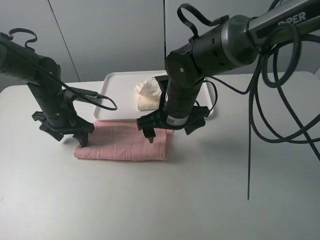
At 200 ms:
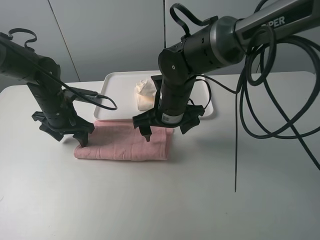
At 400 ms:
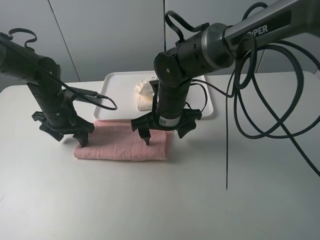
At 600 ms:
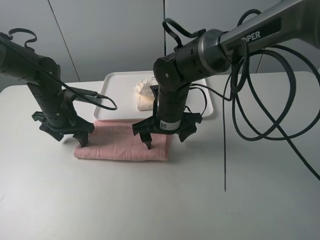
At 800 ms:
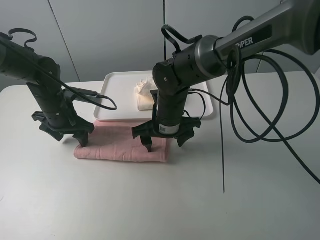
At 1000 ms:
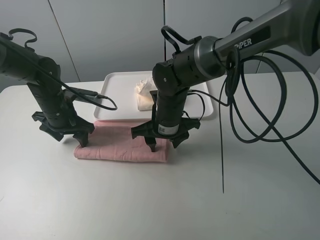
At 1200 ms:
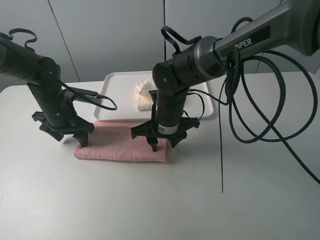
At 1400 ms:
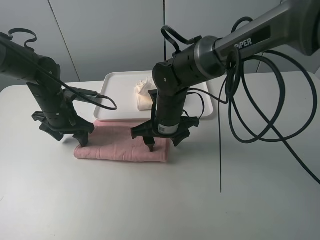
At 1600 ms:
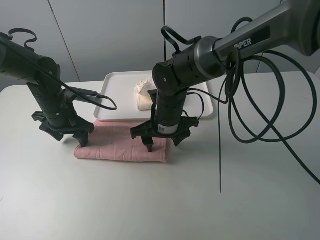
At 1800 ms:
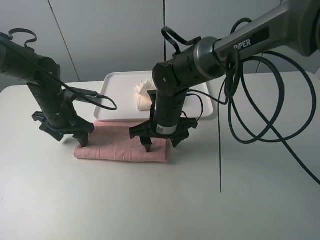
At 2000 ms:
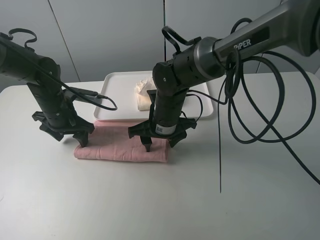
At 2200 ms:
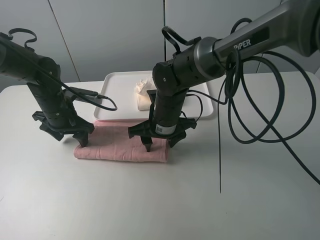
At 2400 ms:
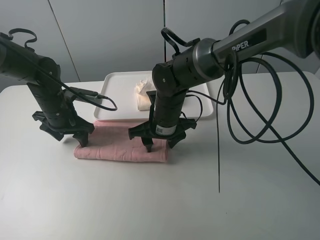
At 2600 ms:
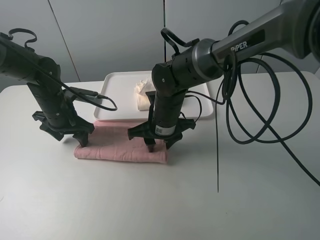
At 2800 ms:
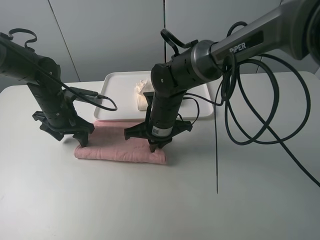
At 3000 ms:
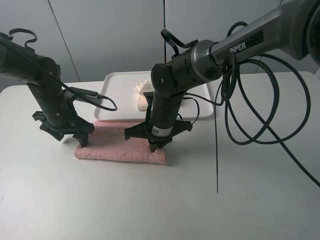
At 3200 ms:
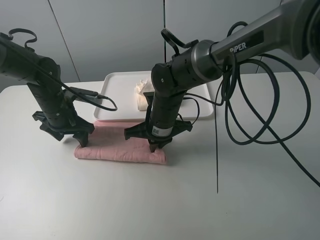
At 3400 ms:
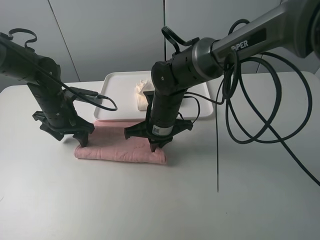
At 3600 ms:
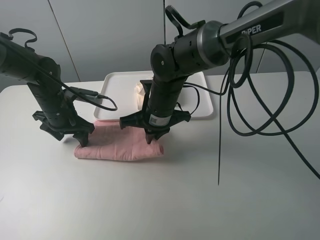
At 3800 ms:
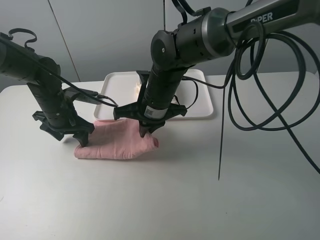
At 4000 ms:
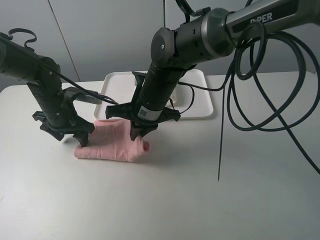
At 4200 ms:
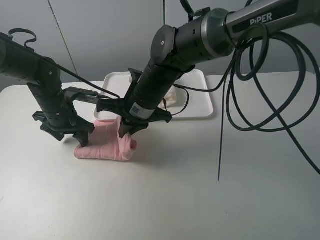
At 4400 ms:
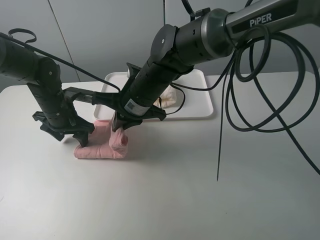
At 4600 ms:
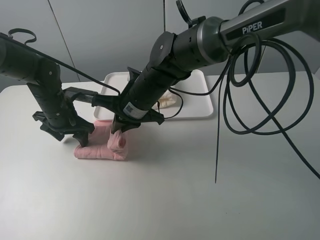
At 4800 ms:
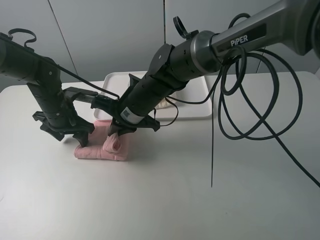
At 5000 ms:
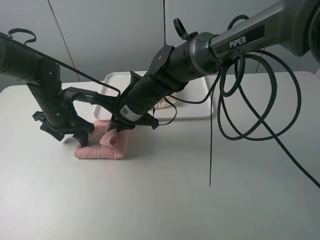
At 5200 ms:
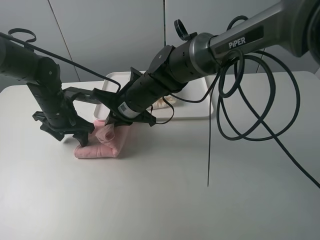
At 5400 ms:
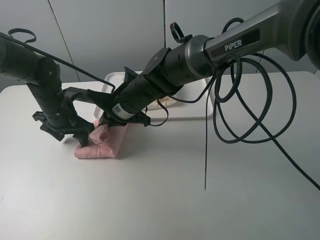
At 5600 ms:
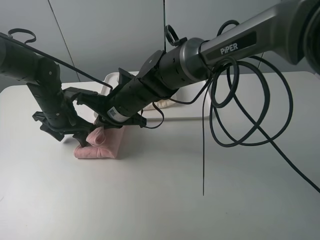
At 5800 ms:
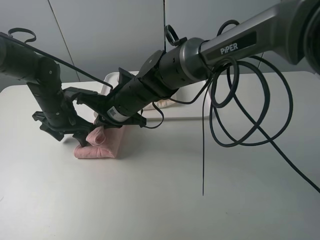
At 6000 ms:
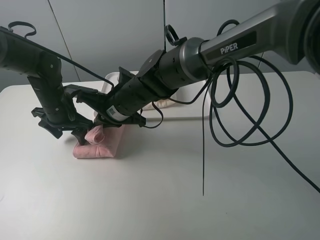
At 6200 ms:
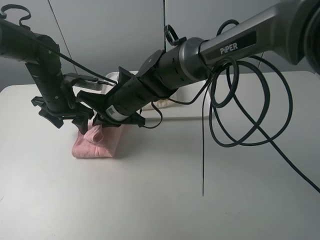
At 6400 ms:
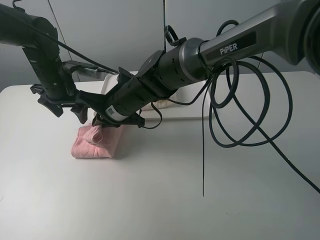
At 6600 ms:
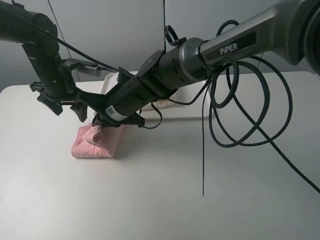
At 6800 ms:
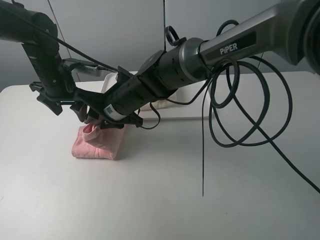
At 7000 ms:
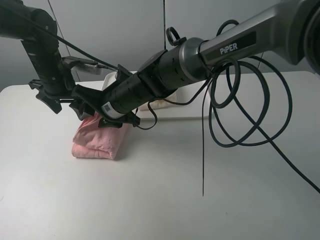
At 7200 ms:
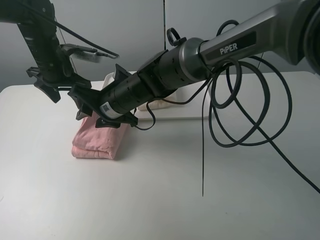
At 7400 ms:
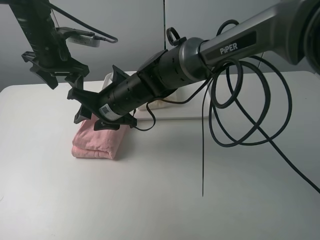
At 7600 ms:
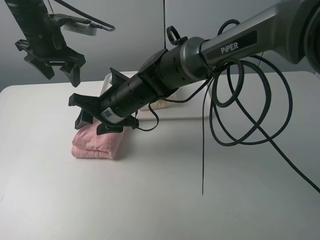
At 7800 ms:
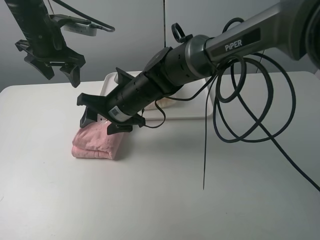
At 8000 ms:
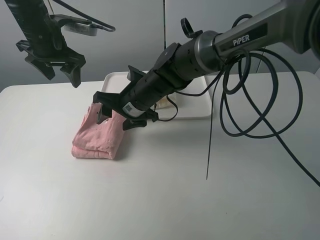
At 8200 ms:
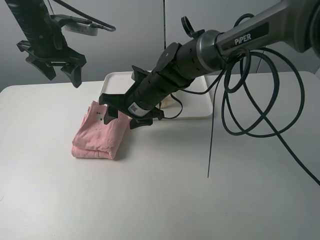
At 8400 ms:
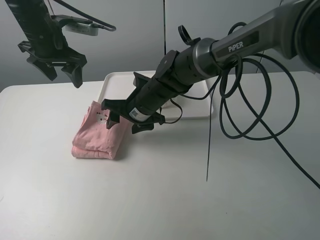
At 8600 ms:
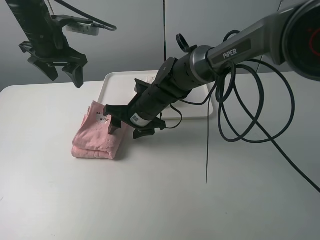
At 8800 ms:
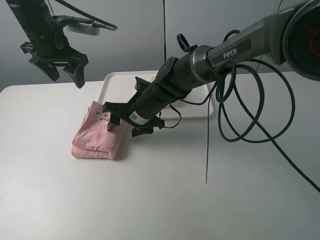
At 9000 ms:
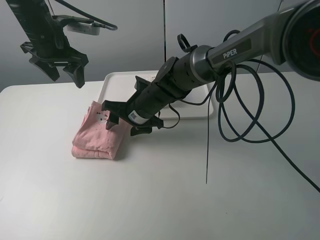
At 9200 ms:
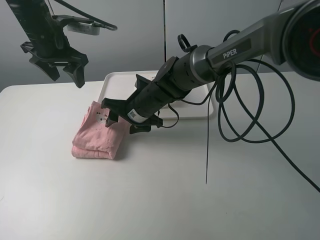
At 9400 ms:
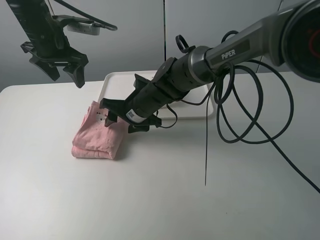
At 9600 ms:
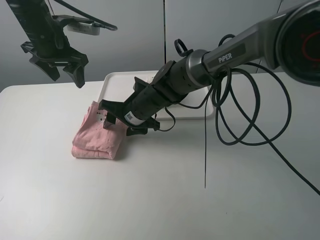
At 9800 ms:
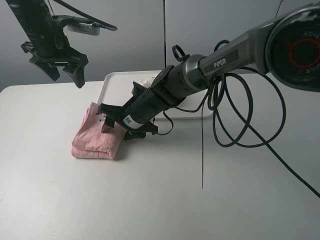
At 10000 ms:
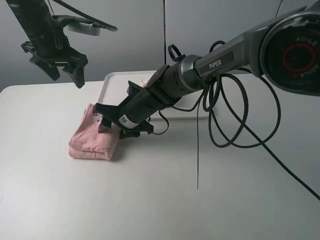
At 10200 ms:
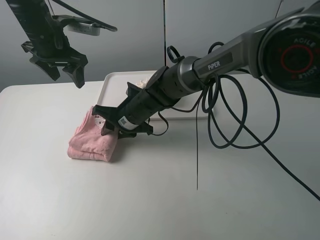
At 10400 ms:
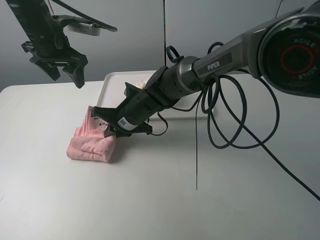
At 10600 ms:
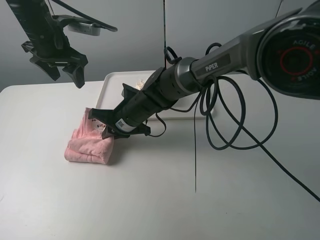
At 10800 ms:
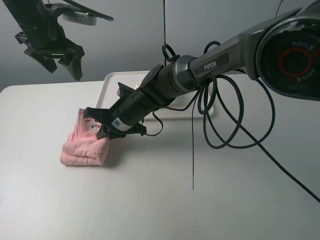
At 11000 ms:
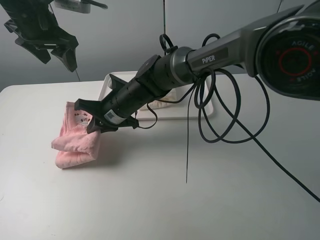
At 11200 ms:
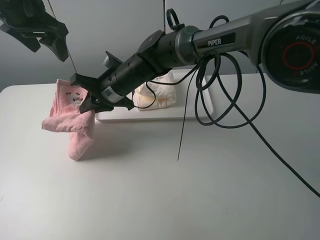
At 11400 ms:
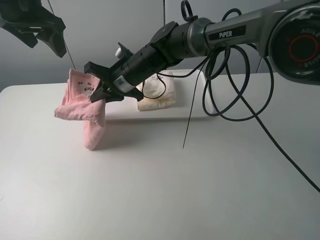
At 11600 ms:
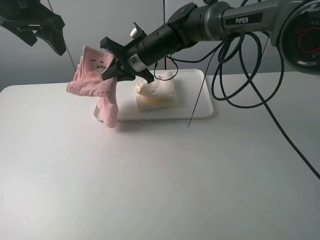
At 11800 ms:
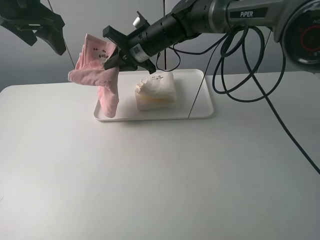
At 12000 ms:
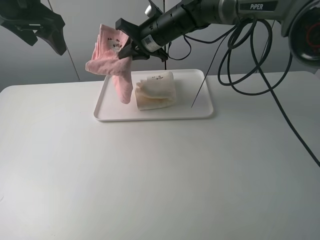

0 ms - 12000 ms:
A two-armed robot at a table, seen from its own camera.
Task of the whole recording: fold one of the towels by two grippers and place it on the tray,then fold another towel by two grippers and place it on the folded towel.
Step, 0 ms - 3000 ms: Grasp the pink towel with the right gripper.
Step, 3200 ms - 7200 ms: Fold the pink towel from right to left with right gripper.
Step, 7400 ms - 10200 ms: Grasp the pink towel with the right gripper.
0 ms - 1600 ms: The grippers move only a little.
1600 ms - 3000 ms: The right gripper closes up.
3000 ms - 4400 ms: The right gripper goes approximately 5 cm upward.
6000 ms - 7600 ms: The right gripper opens up. Meanwhile the left gripper is displaced upward by about 15 cm.
7600 ms - 9000 ms: The right gripper changes place by some 5 cm.
9000 ms - 10400 ms: The right gripper closes its fingers.
10400 ms - 12000 ms: The left gripper is displaced upward by roughly 10 cm, while the right gripper goes some 20 cm upward, forward and to the right.

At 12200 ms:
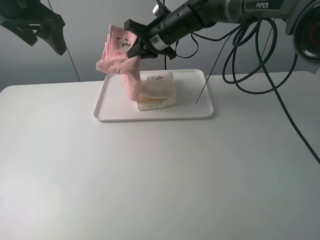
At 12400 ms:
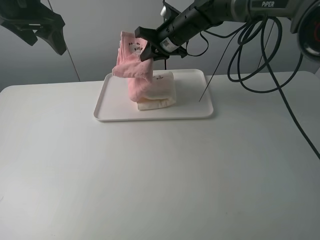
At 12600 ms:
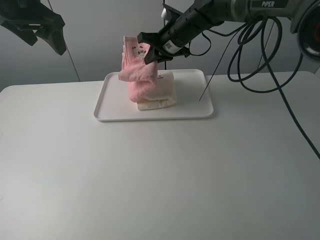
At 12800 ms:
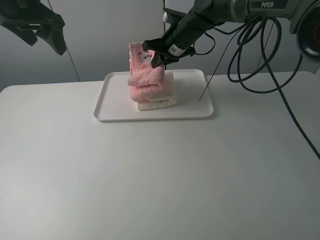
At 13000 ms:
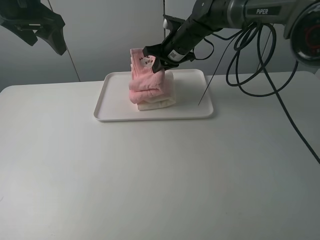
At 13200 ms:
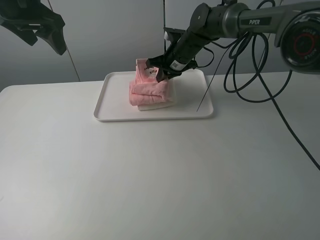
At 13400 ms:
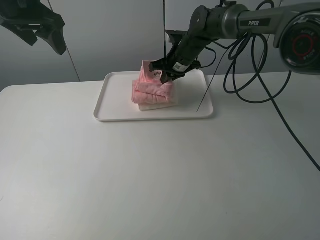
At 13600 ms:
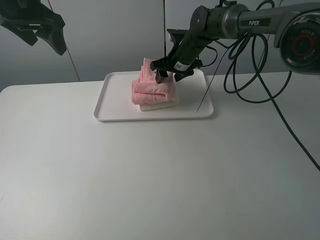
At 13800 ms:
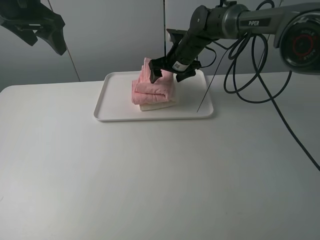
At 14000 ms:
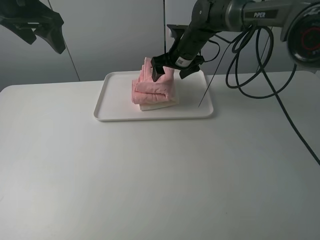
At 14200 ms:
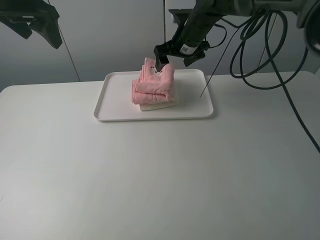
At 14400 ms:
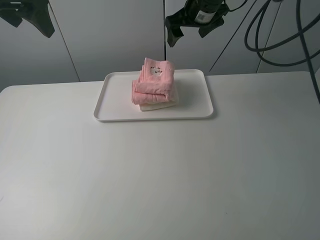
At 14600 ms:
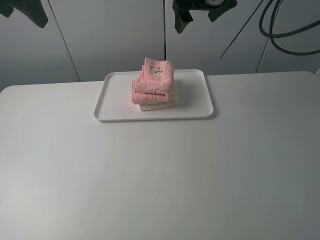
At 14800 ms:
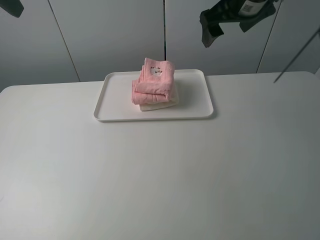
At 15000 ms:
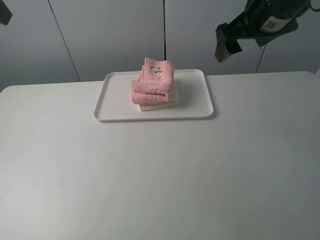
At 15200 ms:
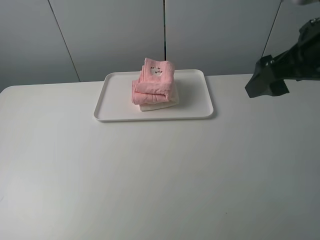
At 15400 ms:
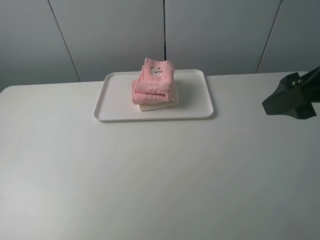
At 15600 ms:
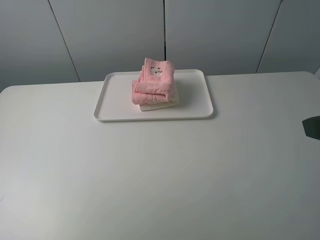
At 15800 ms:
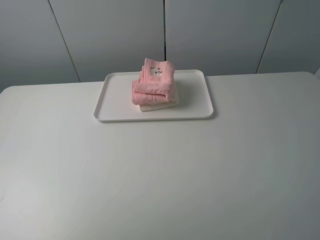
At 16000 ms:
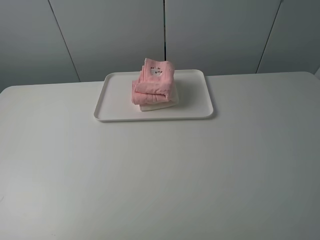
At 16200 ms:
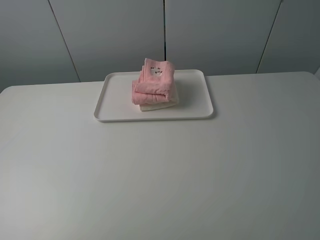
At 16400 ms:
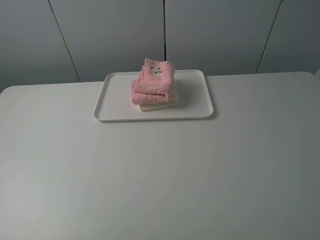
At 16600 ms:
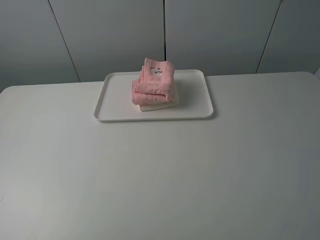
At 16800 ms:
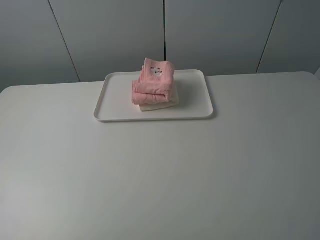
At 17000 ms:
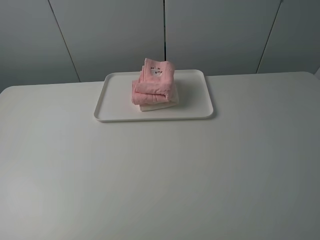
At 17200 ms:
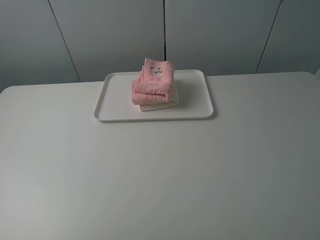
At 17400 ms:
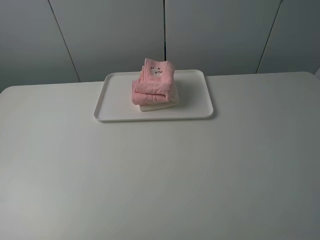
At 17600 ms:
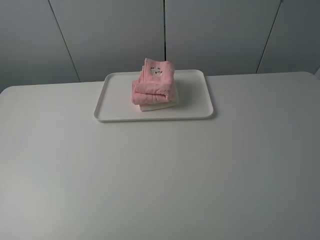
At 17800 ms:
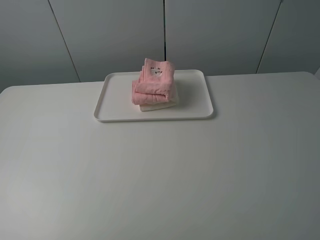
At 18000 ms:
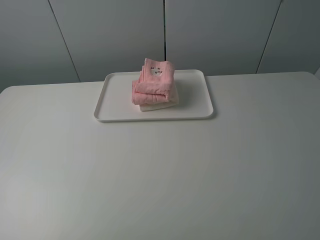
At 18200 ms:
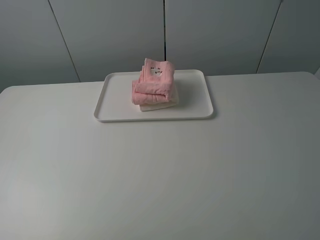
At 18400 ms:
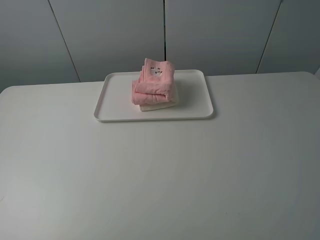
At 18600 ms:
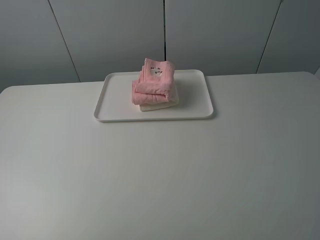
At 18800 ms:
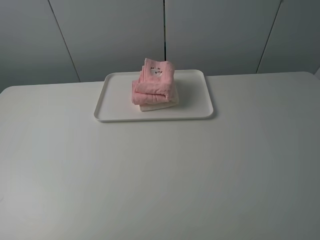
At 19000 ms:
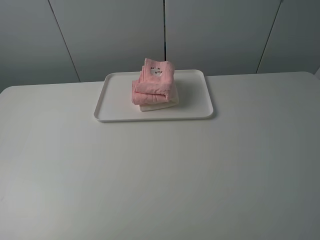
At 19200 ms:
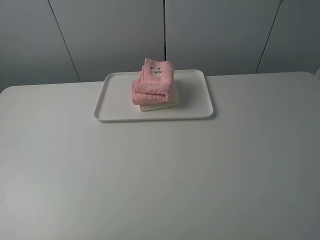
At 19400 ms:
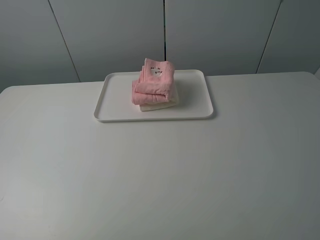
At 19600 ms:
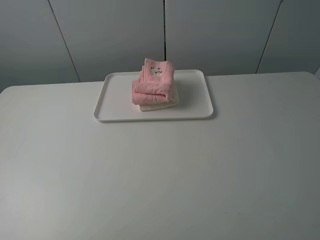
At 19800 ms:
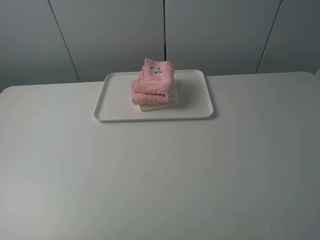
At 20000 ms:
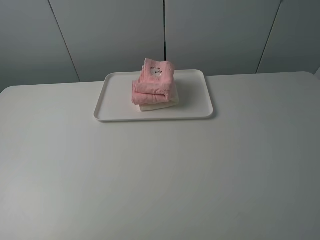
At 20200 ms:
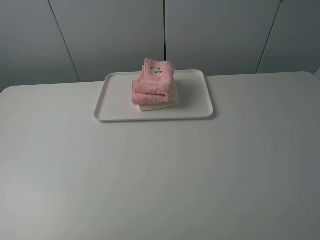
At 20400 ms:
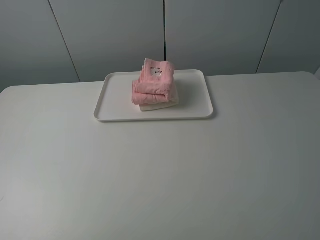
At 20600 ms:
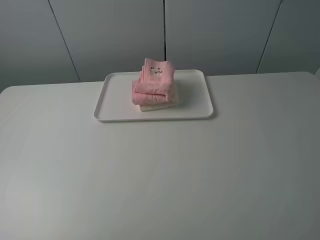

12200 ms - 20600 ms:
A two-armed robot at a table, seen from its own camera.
Task of the whole recording: fold one of the towels by two grippers and place it on the tray,then fold another towel by two grippers and place it on the folded towel.
12200 ms - 13600 ms: The right gripper heads downward, covering some 5 cm, and opens its fingers.
13600 ms - 15000 ms: The right gripper moves backward, upward and to the right, roughly 30 cm. The left gripper heads backward and upward, covering about 15 cm.
15000 ms - 16400 ms: The left gripper moves backward and downward, approximately 30 cm. Meanwhile the right gripper travels backward by approximately 30 cm.
17800 ms - 20600 ms: The two grippers keep their place.

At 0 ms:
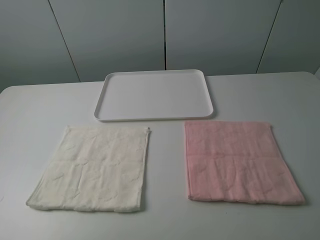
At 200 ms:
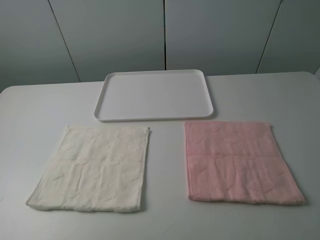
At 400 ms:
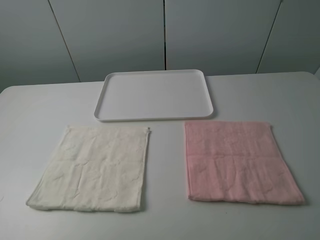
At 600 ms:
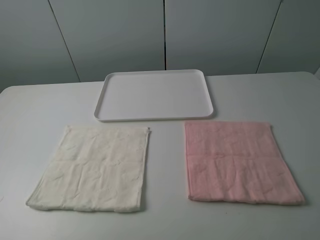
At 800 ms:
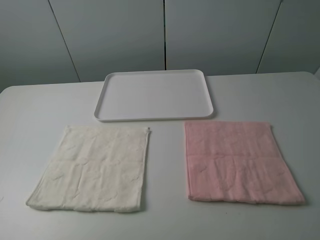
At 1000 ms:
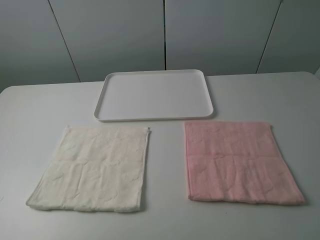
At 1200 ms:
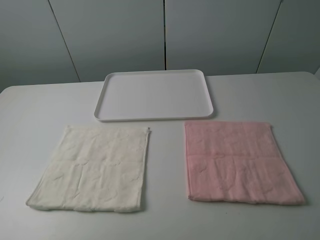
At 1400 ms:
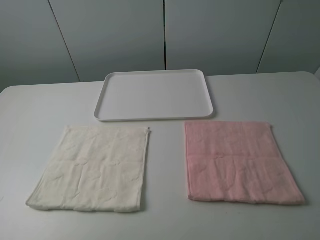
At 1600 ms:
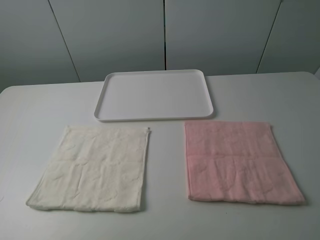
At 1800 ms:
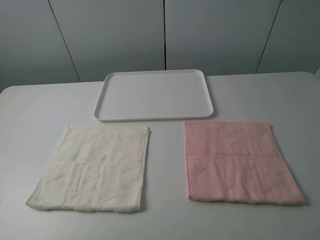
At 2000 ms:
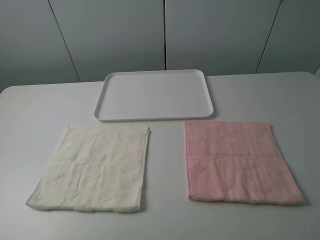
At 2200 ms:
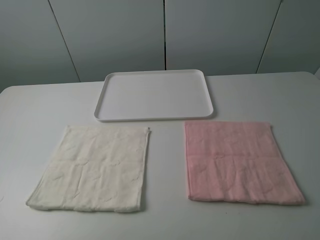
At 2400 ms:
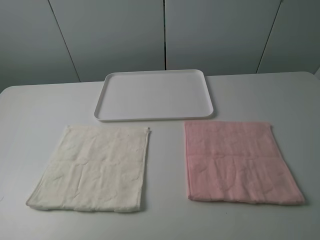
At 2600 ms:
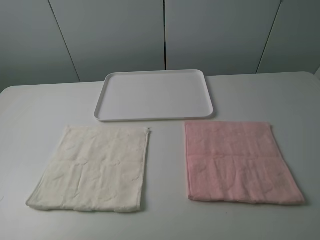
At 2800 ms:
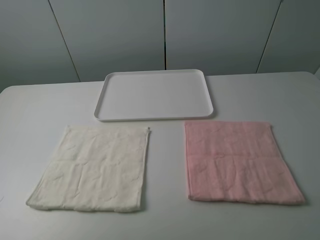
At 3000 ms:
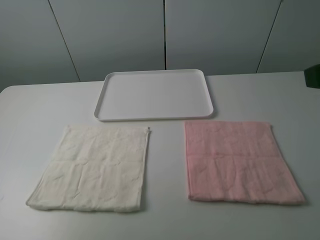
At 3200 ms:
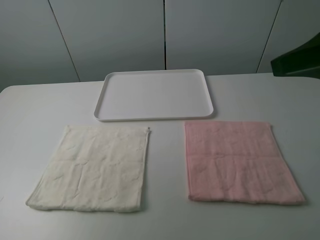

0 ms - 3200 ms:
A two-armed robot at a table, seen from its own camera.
Task of the whole recording: fold one of the towels by two grippers and place it on the tray,then fold another towel by two grippers and place it on the folded towel.
0 ms - 1600 ms: Both grippers stay about where they are.
1600 ms - 3200 ms: The grippers both shift forward by roughly 20 cm.
